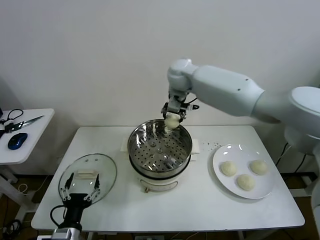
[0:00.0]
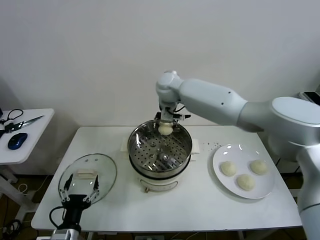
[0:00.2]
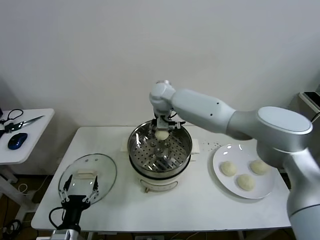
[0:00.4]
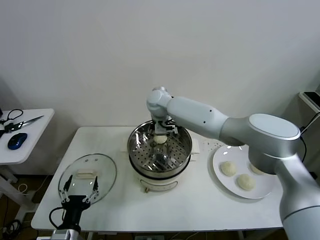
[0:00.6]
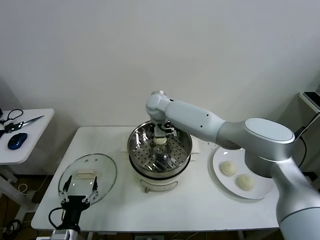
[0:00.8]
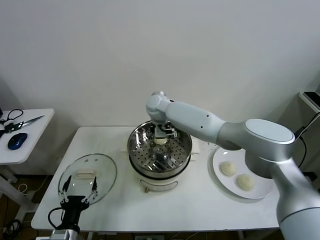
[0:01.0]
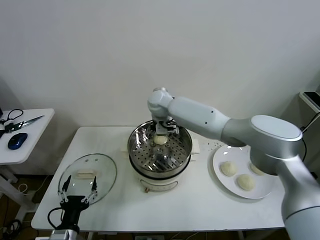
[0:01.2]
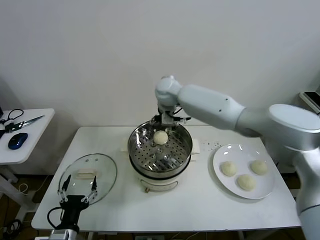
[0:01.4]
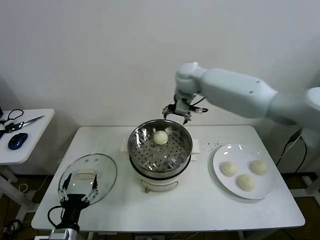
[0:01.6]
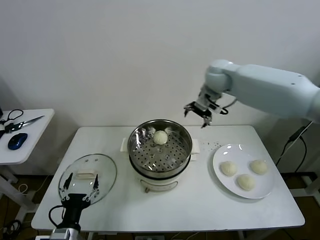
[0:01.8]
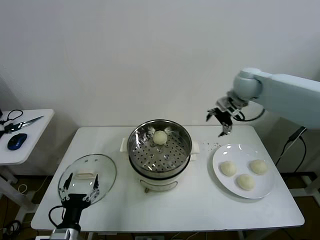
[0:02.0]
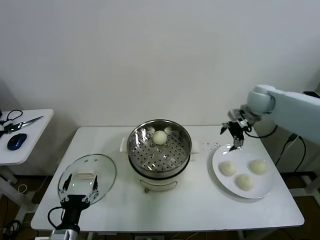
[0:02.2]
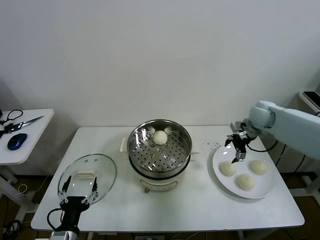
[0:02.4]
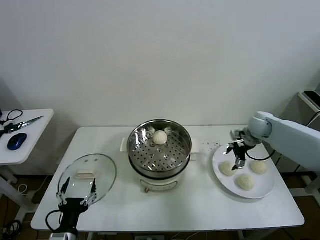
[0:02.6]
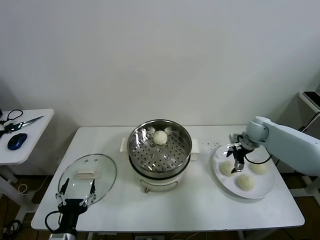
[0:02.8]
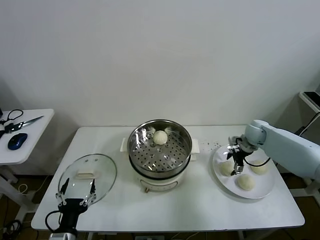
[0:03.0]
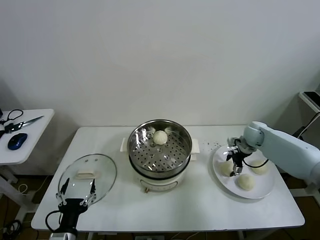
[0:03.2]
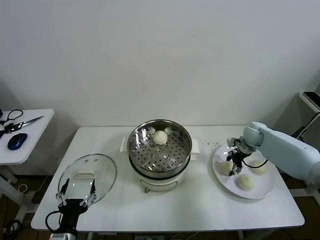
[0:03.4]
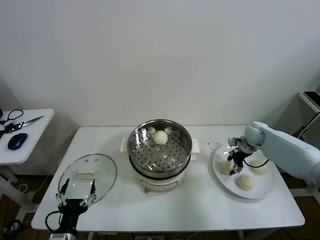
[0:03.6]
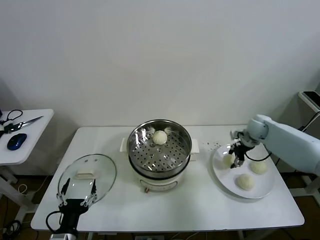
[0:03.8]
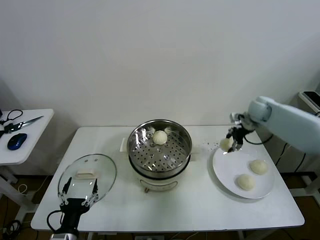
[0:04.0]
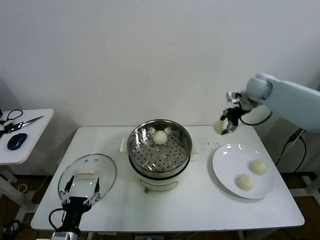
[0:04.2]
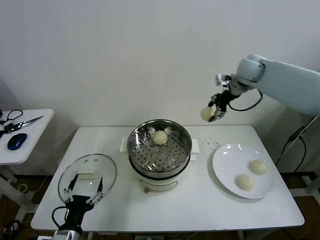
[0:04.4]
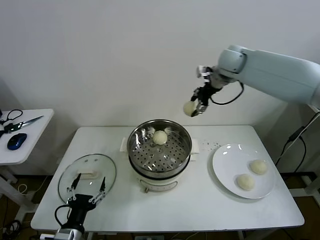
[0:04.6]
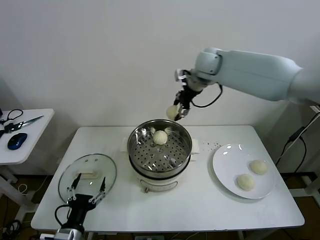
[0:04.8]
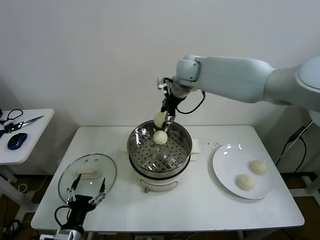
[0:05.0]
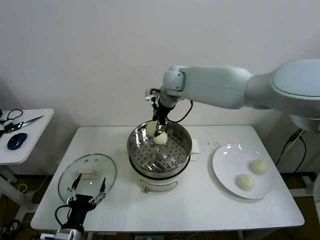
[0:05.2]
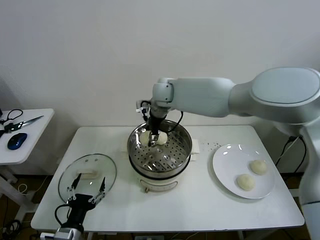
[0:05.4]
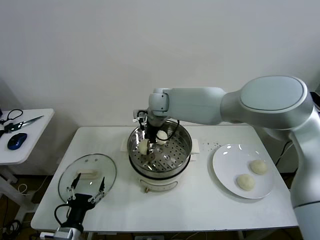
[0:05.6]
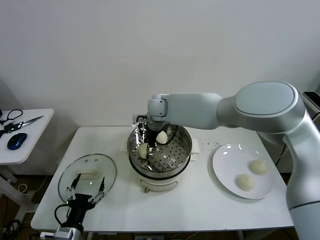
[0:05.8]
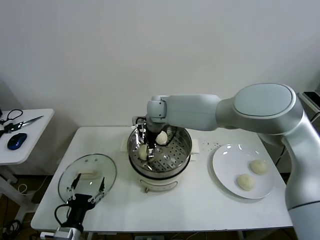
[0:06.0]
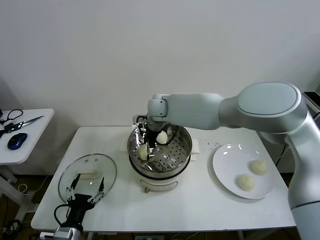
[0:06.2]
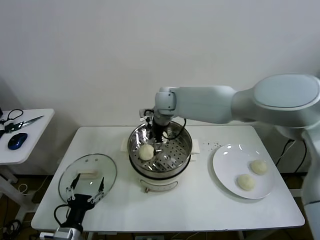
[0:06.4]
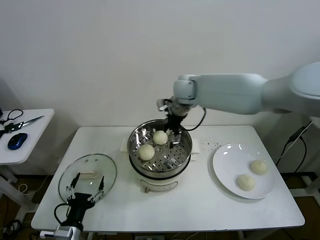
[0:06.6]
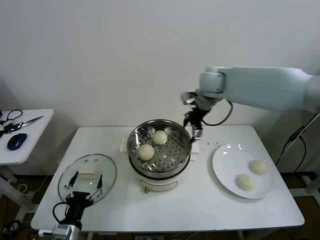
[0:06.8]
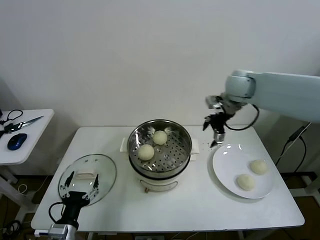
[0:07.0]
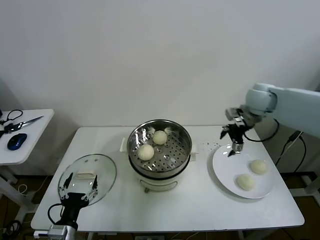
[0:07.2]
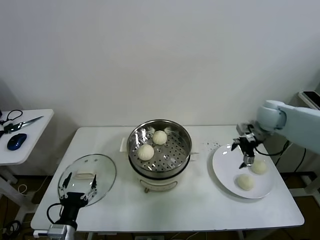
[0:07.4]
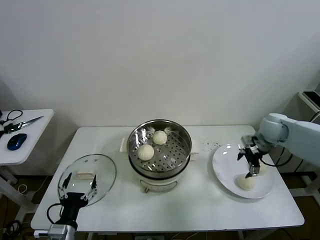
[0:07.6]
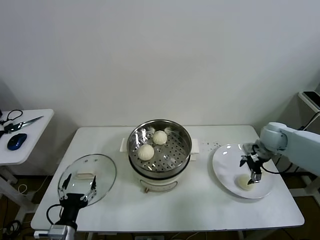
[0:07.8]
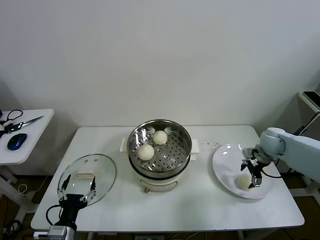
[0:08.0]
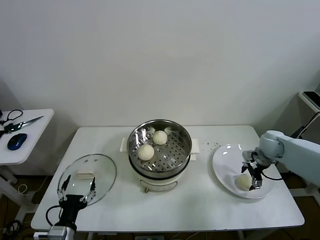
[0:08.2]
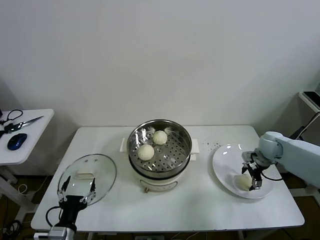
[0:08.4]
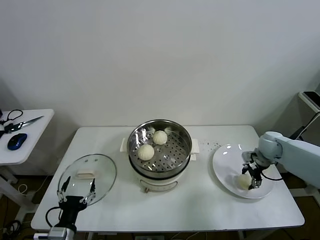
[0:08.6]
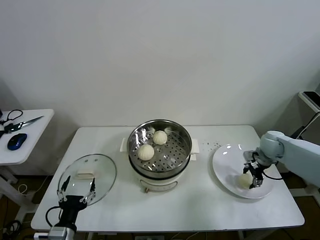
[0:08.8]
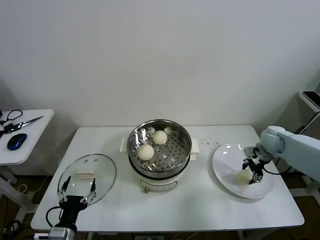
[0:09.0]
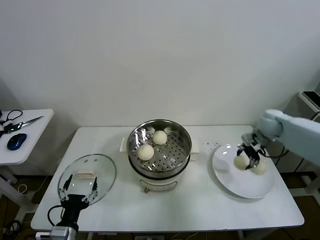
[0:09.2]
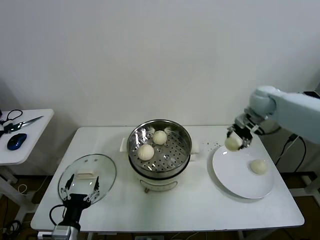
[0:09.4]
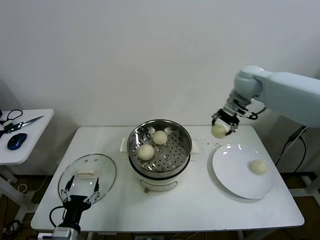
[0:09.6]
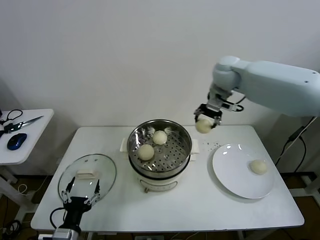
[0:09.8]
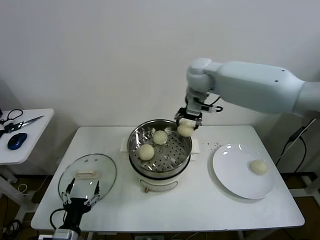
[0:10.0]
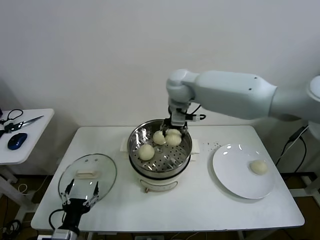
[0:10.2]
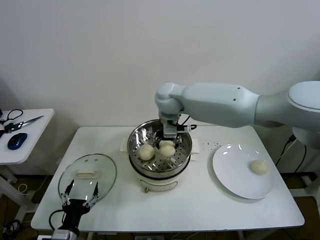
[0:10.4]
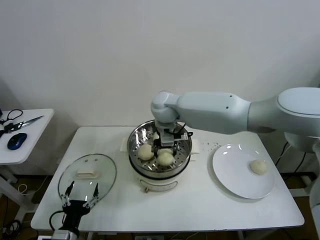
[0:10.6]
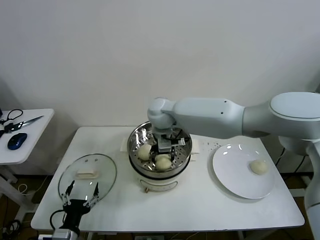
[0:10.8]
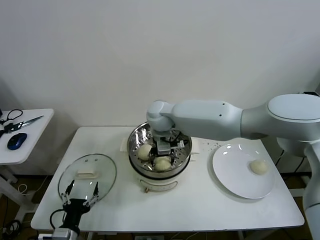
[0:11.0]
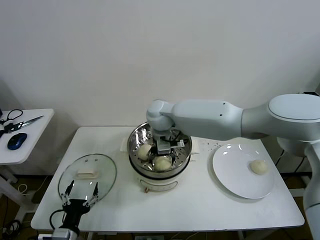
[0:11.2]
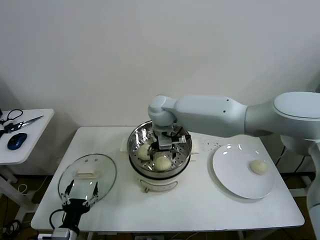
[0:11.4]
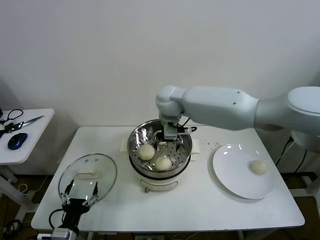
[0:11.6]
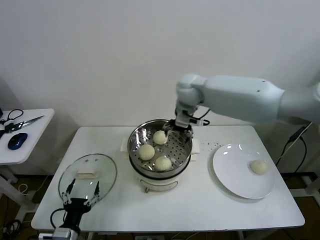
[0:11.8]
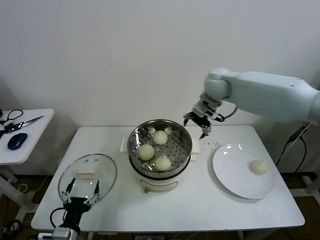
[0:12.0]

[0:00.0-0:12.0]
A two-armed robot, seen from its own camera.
Task of the whole recording: take steamed baozi put them in steamer then cover it.
Step, 0:01.2 to 0:03.4: Grasp the baozi in the plate with right gripper.
Step, 0:03.6 to 0:06.0: Place the baozi on the steamer with right gripper.
Step, 0:06.2 to 0:08.6: Grasp the baozi in the plate with right gripper.
Step, 0:08.8 to 0:11.2: Place the baozi on the steamer with right gripper.
0:00.0 to 0:01.6: The right gripper travels to the right by approximately 10 cm, and opens its fingers.
0:01.6 to 0:03.0: The right gripper is displaced to the right and downward by some 35 cm.
0:03.0 to 0:04.4: The right gripper moves upward and to the left, some 30 cm, and closes.
0:04.4 to 0:06.0: The right gripper moves to the left and downward, about 30 cm, and opens up.
0:06.0 to 0:07.6: The right gripper shifts roughly 40 cm to the right.
0:07.6 to 0:09.0: The right gripper closes up.
0:09.0 to 0:10.4: The right gripper travels to the left by roughly 40 cm.
0:10.4 to 0:12.0: The right gripper shifts some 20 cm to the right, and opens up.

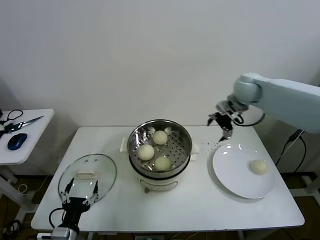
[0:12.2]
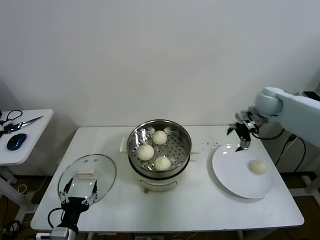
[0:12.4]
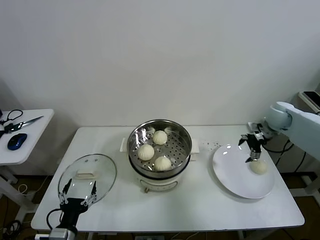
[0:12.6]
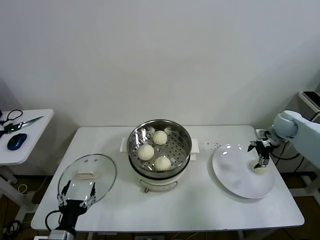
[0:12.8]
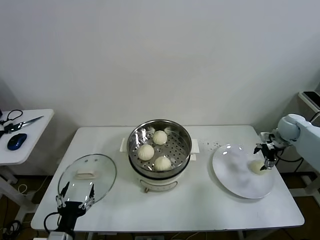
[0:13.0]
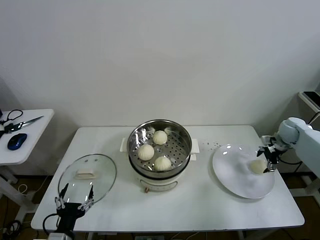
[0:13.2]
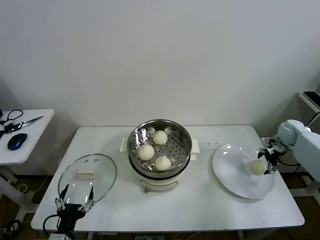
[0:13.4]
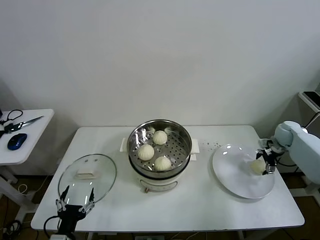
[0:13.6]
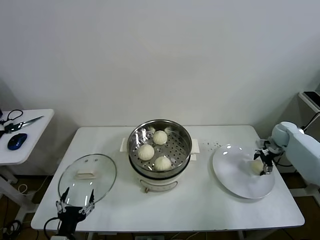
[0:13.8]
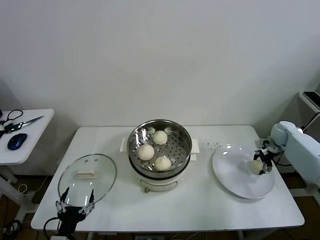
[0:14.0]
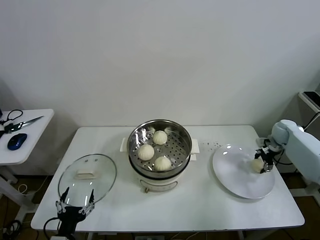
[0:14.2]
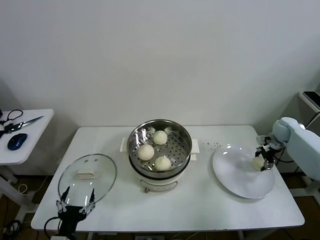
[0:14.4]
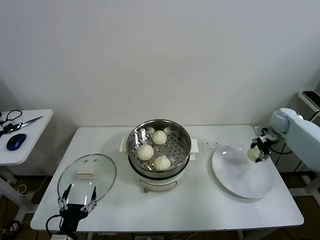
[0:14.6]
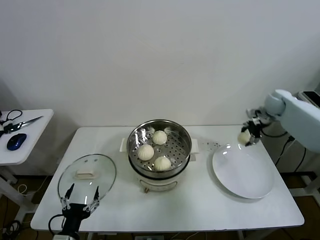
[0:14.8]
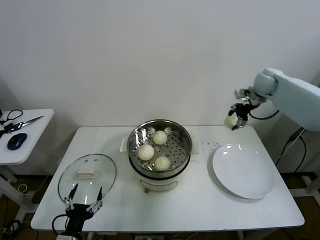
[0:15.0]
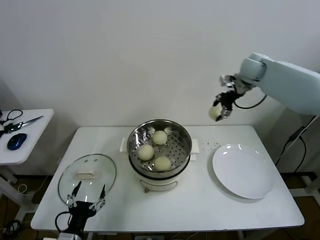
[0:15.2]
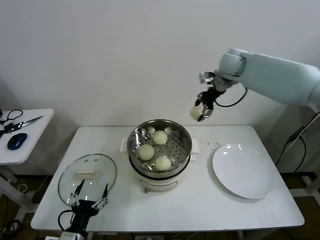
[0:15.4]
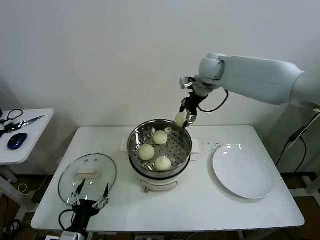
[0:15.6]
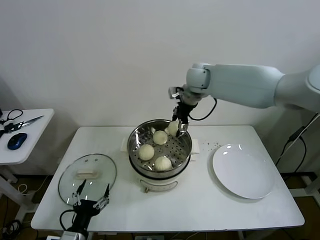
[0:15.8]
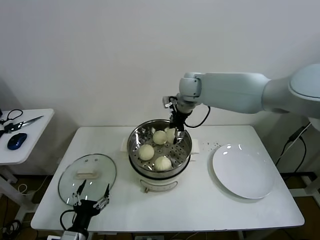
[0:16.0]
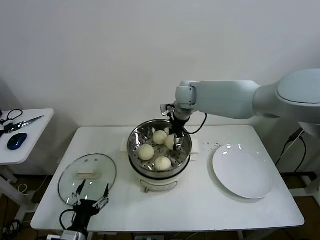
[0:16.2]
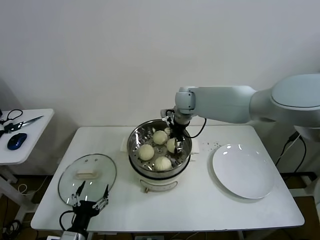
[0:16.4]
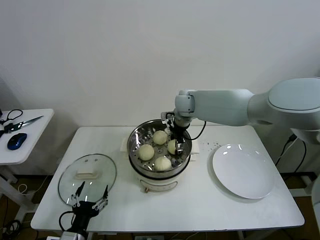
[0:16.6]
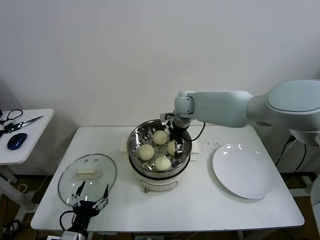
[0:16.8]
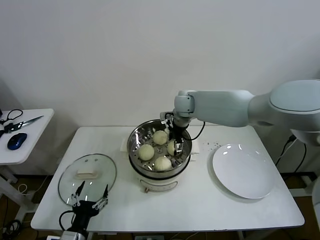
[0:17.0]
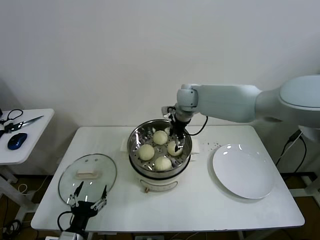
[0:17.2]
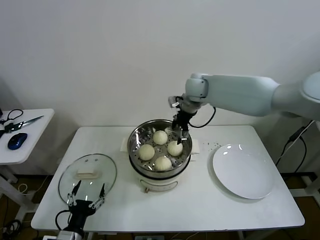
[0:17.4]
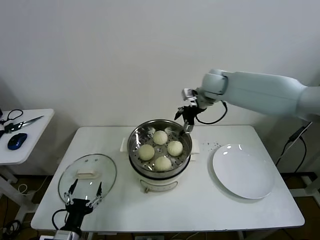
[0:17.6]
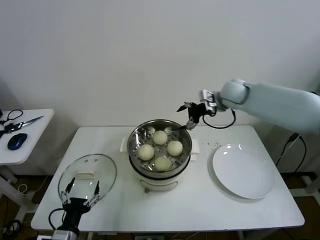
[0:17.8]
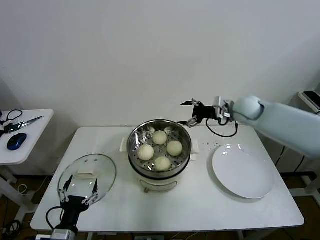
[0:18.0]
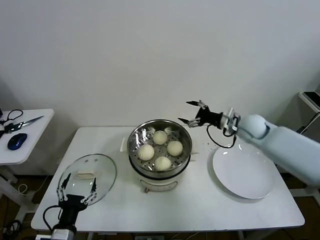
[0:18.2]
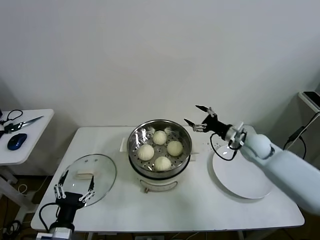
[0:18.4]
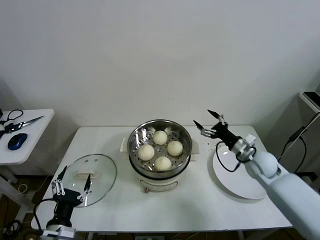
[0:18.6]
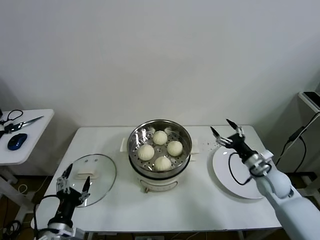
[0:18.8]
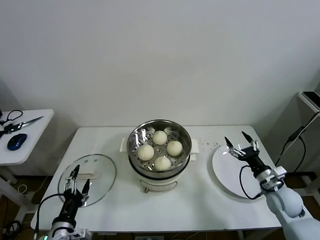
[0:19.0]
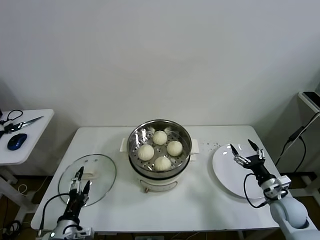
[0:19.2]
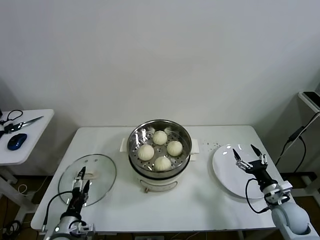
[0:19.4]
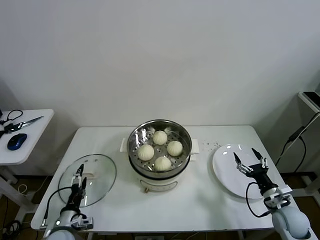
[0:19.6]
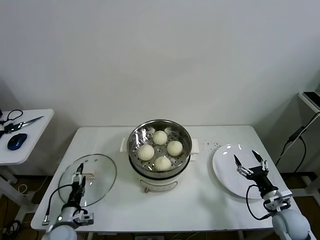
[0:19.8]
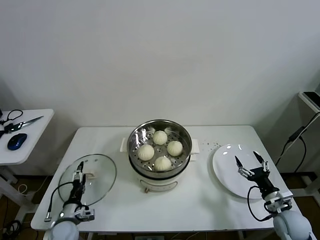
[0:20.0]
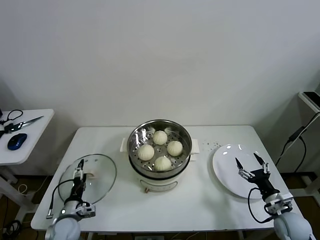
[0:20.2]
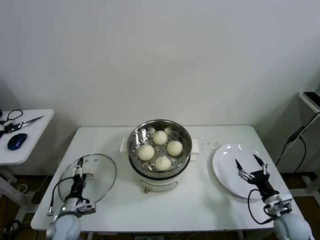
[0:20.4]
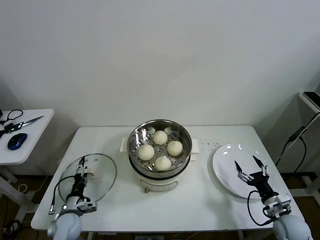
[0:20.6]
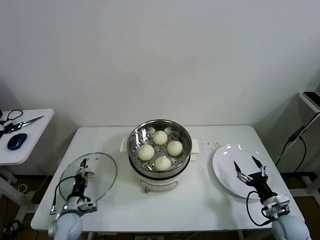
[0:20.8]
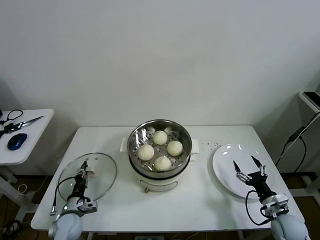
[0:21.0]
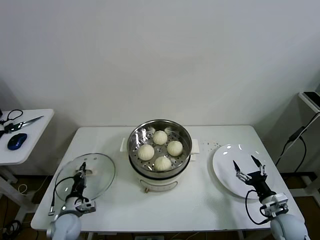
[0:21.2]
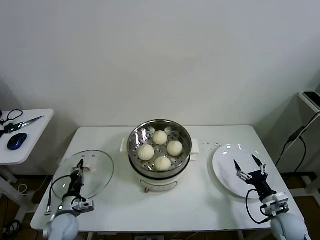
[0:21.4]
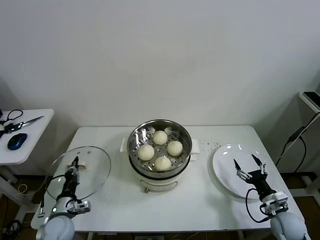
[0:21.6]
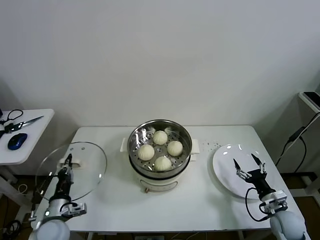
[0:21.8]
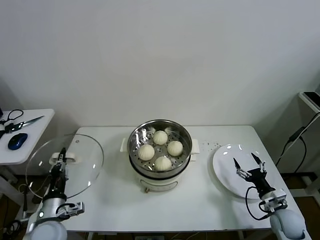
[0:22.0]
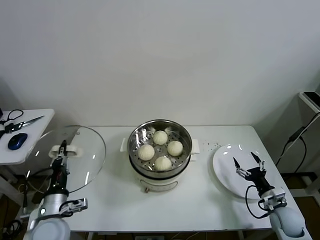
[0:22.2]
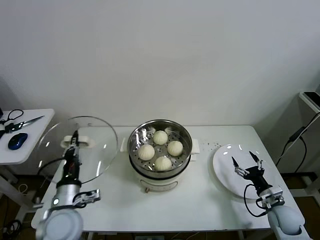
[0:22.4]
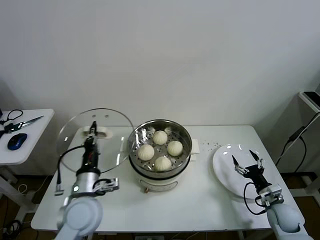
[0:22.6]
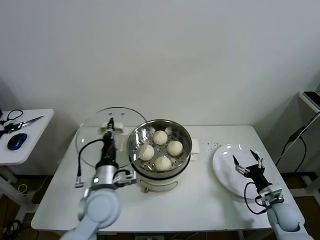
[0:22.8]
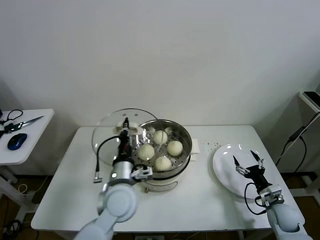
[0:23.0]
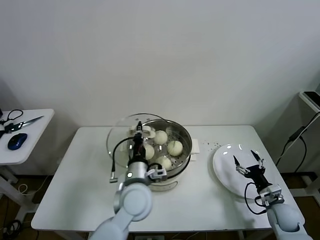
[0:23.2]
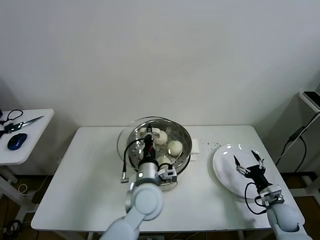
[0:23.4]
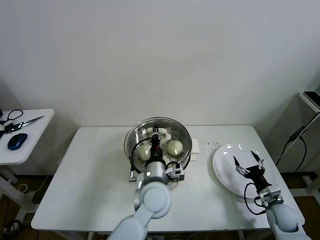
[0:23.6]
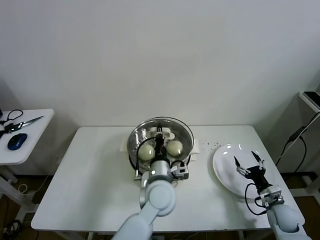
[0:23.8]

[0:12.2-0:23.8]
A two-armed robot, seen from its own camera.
Task of the whole recording: take steamed baozi put them in steamer then cover it.
Step, 0:12.2 to 0:14.0: Grasp the baozi in the plate with right gripper.
Step, 0:14.2 to 0:16.6: Place the baozi on the steamer with right gripper.
Step, 0:17.0 to 0:21.0: Grasp the pot lid with left gripper.
0:12.2 to 0:13.6: The right gripper heads to the right and downward, covering roughly 30 cm.
0:13.6 to 0:15.0: The right gripper is displaced upward and to the left by approximately 25 cm, and closes up.
0:15.0 to 0:16.6: The right gripper is displaced to the left by approximately 30 cm.
0:16.6 to 0:18.0: The right gripper heads to the right, covering about 20 cm, and opens.
0:18.0 to 0:19.4: The right gripper shifts approximately 35 cm backward, downward and to the right. Meanwhile the left gripper shifts by about 5 cm.
0:19.4 to 0:21.0: The left gripper moves forward and downward, approximately 10 cm, and closes up.
0:21.0 to 0:22.4: The left gripper travels upward by approximately 20 cm, and closes.
0:22.4 to 0:23.8: The left gripper goes roughly 25 cm to the right.
